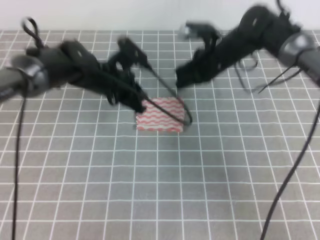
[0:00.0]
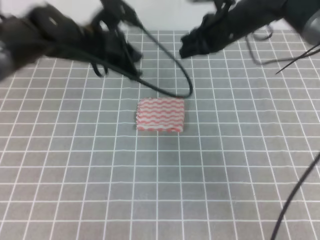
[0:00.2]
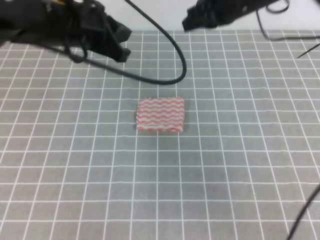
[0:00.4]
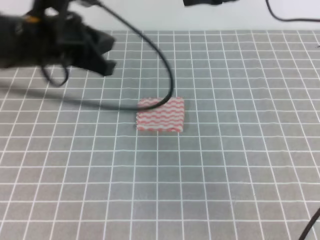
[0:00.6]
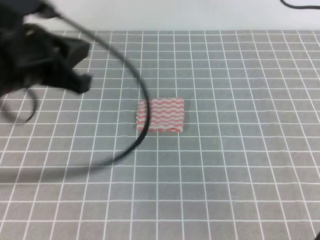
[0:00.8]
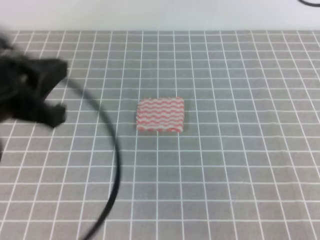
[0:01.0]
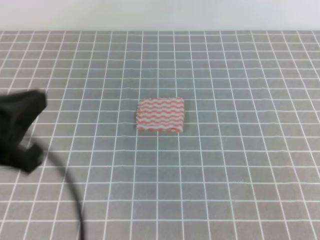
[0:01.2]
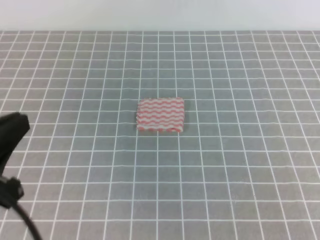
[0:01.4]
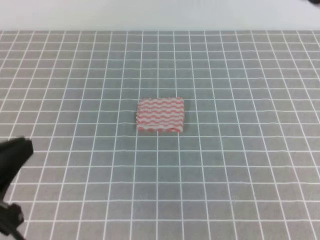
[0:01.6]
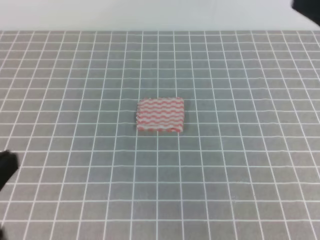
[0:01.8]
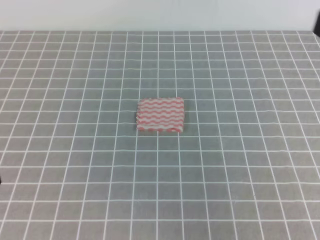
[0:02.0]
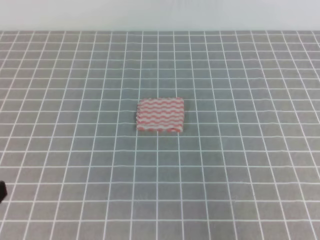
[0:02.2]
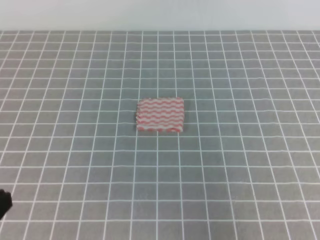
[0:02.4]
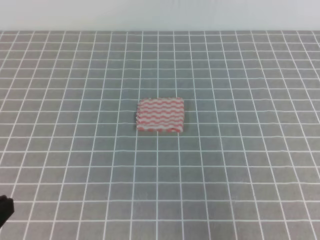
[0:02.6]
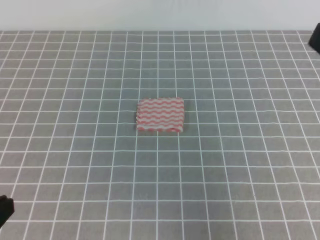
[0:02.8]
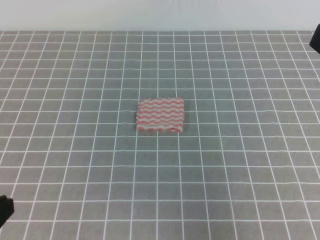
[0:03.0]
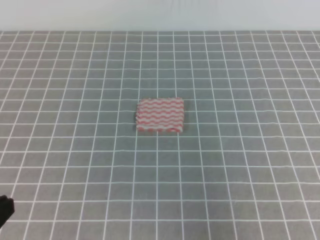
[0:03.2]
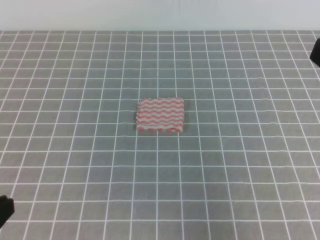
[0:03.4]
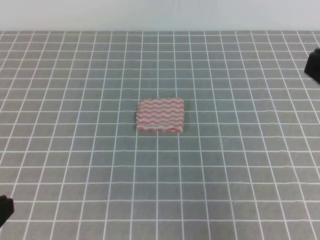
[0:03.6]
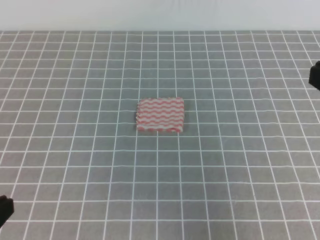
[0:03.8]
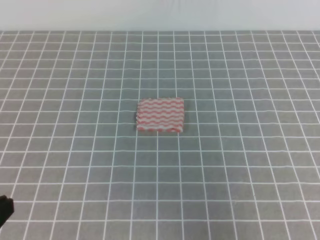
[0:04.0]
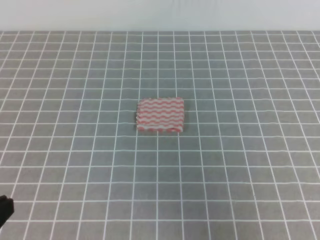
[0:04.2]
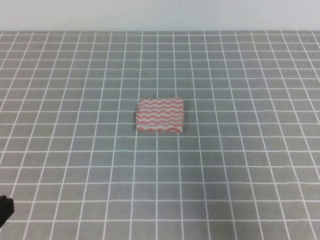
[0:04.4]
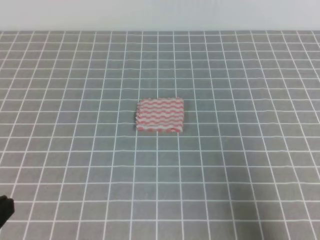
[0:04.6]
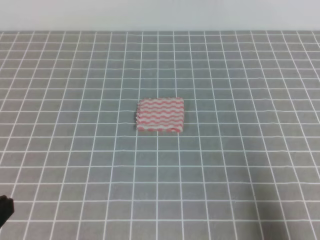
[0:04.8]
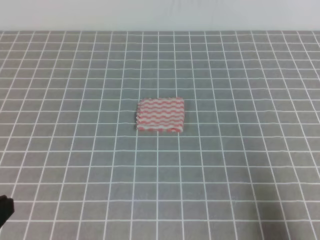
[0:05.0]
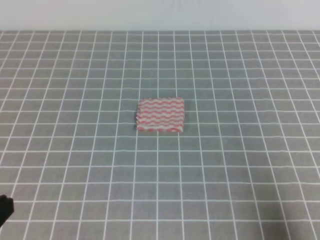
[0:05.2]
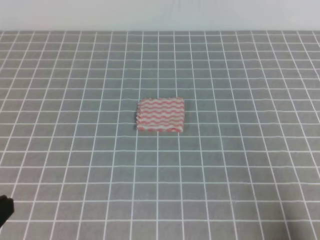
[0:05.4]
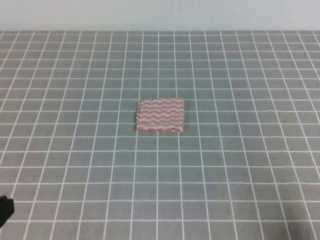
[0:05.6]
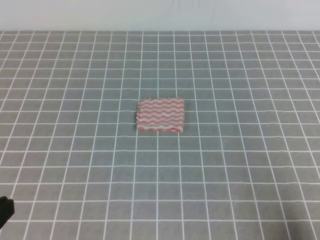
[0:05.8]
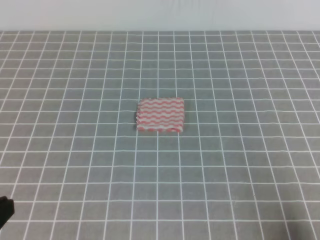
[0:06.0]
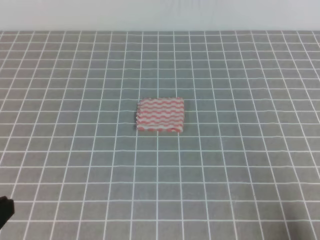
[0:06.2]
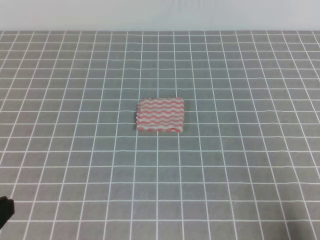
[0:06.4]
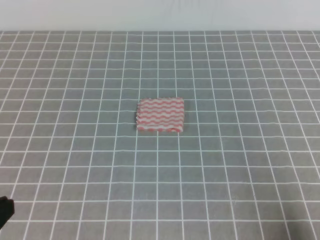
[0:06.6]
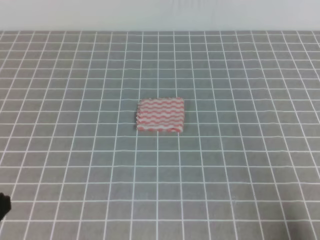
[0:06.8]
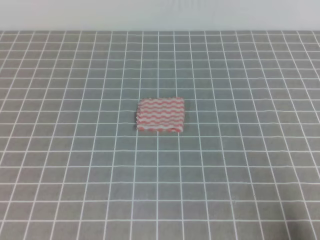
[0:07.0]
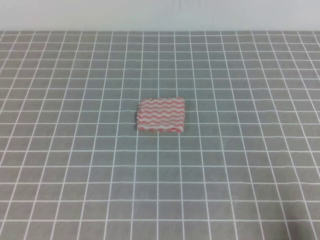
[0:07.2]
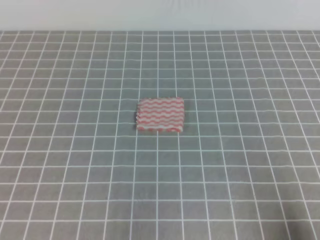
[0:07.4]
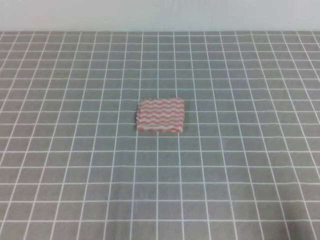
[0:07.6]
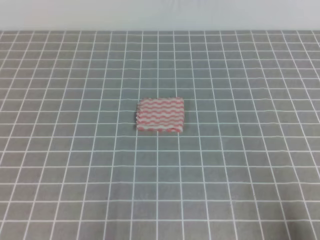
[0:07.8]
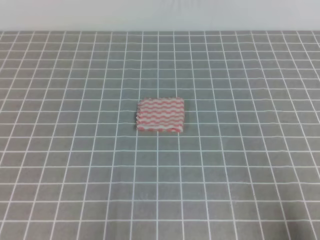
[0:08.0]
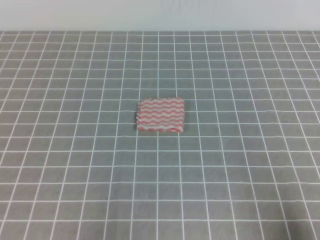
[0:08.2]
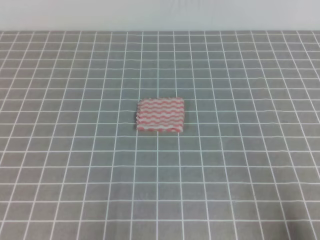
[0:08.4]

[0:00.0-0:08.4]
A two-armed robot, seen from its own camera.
Step, 0.0 to 8.4 s: Fold the towel.
0.0 to 1.4 s: The right gripper is displaced upward and backward by approximately 30 cm. The left gripper shifts some 30 cm backward and to the left.
1.4 to 2.8 s: The right gripper heads backward and downward, covering about 15 cm, while the left gripper goes about 5 cm backward.
4.2 to 5.6 s: The right gripper heads downward, covering about 20 cm.

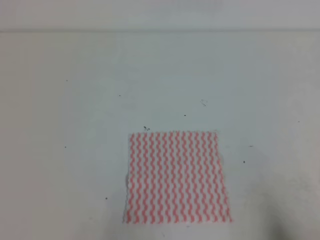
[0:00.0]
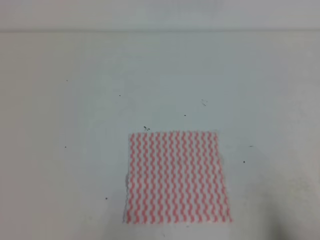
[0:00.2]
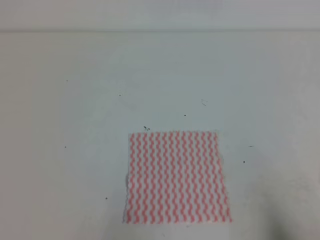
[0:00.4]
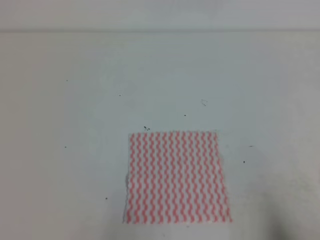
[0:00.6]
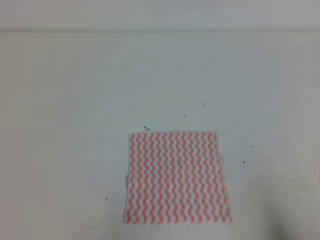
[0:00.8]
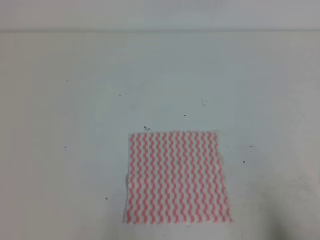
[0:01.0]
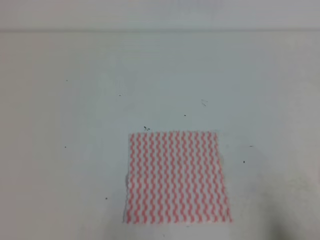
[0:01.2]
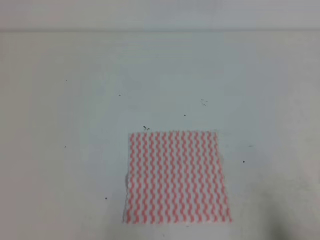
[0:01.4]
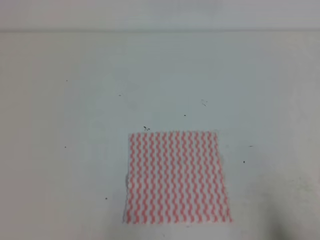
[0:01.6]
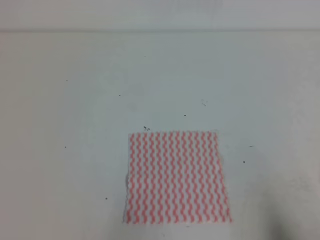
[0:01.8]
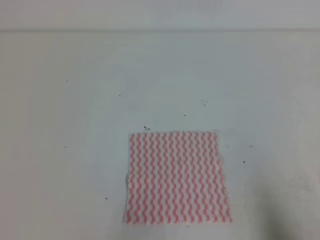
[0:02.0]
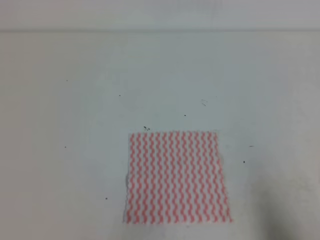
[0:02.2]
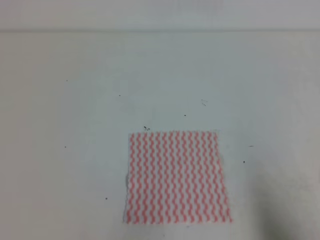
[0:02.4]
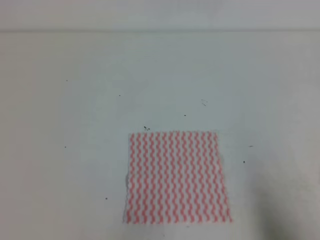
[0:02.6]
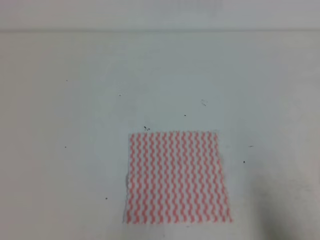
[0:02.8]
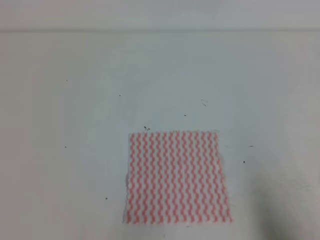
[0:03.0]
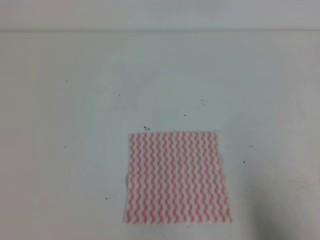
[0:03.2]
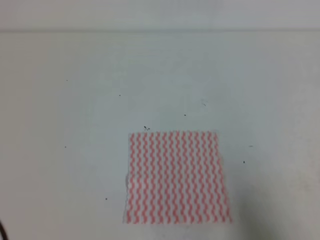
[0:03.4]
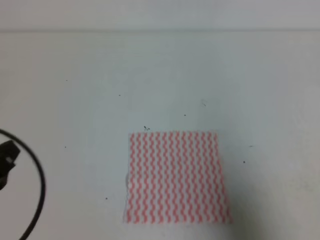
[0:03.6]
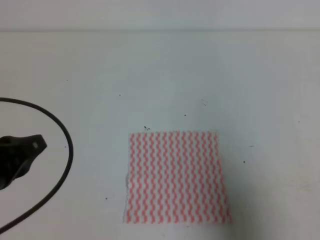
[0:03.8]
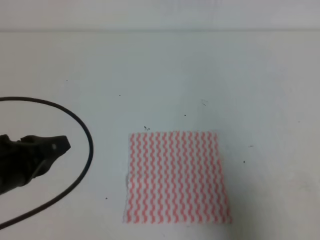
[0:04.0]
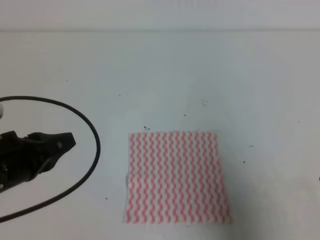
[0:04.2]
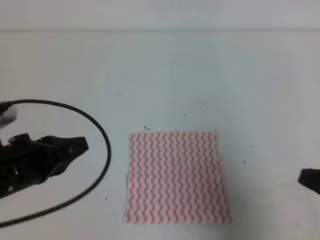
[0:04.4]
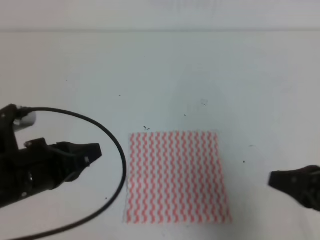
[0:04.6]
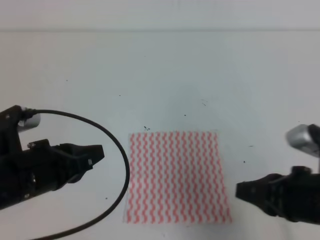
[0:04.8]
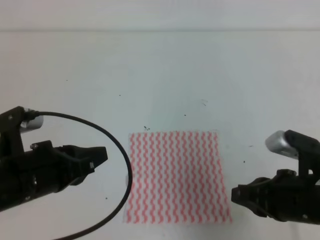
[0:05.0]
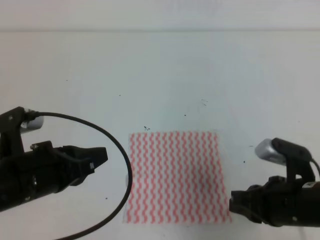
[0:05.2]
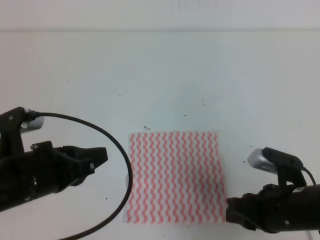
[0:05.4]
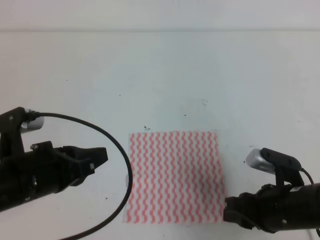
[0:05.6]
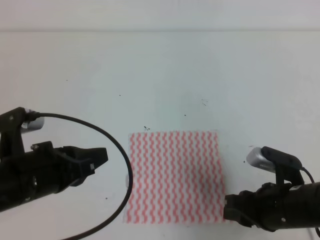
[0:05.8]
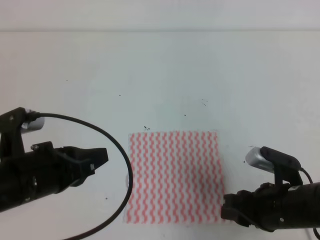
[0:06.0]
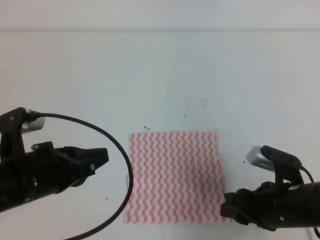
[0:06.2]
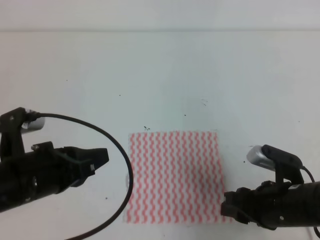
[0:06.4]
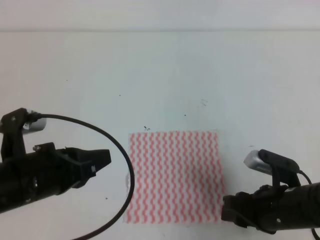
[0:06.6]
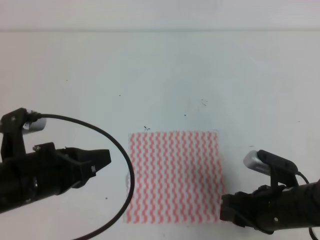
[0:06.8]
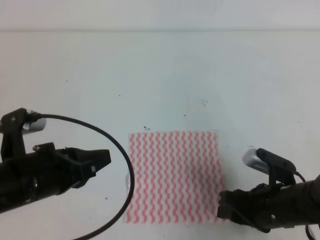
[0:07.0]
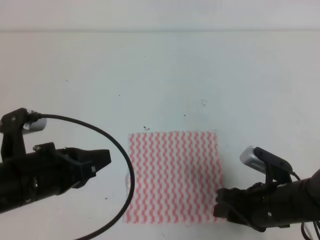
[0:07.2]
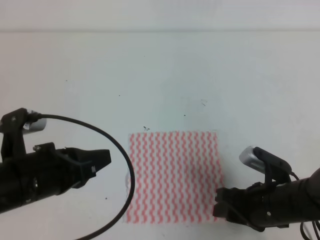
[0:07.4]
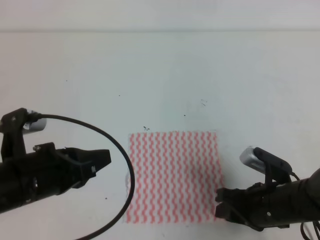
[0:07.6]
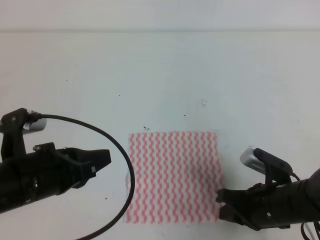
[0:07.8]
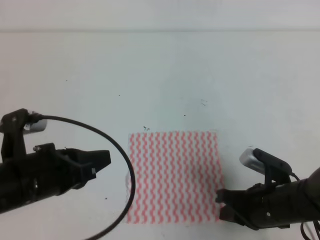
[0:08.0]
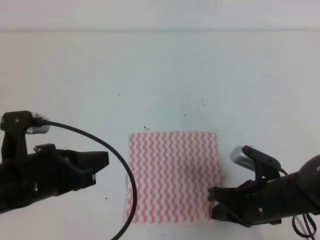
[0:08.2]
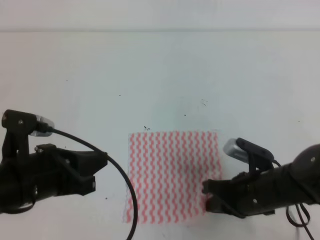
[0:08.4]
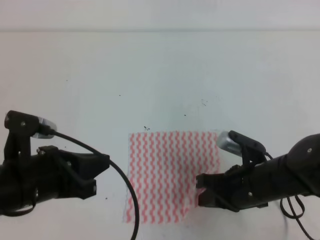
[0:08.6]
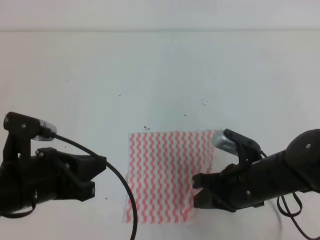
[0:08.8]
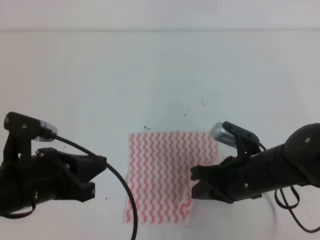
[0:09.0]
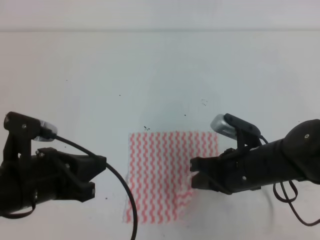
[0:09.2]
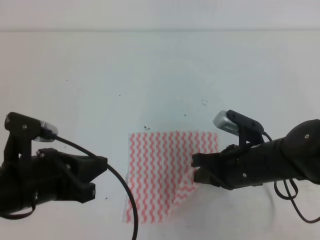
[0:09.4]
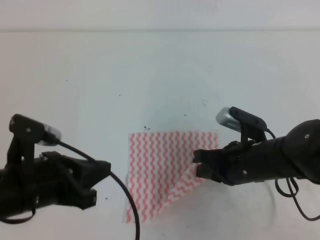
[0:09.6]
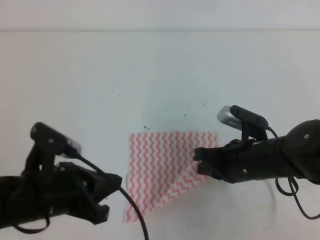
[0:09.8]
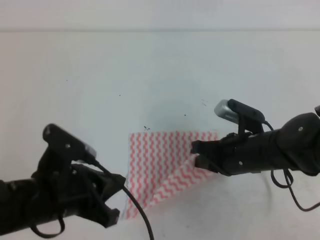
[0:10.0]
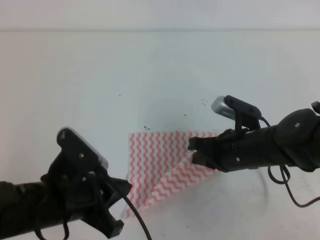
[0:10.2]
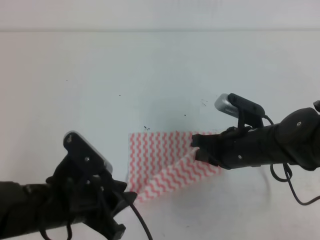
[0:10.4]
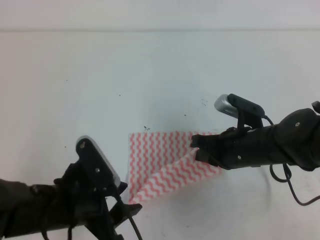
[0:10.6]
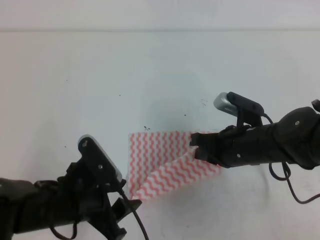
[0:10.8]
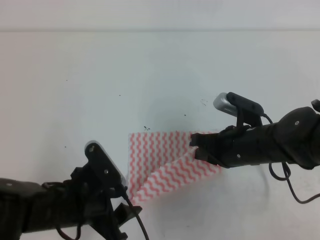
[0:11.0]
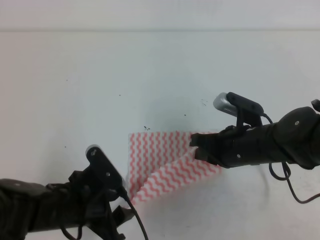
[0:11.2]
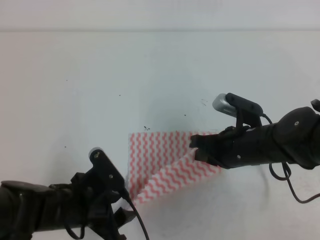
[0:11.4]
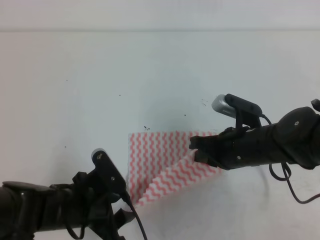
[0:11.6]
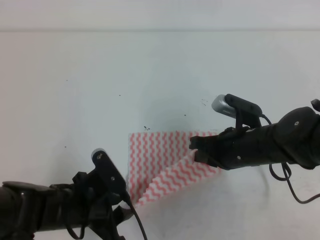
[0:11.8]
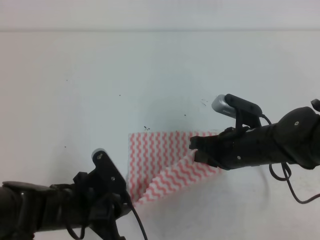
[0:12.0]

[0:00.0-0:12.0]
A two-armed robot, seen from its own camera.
0.0 to 1.6 s: Both grippers stay about where they are.
3.0 to 4.4 s: The left gripper moves forward and to the right, approximately 15 cm, while the right gripper travels forward and upward by approximately 10 cm.
4.4 to 6.0 s: The right gripper is displaced downward, to the left and forward by about 15 cm, and opens its fingers.
6.0 to 7.6 s: The grippers stay close to where they were, moving slightly.
7.6 to 9.0 s: The right gripper goes some 5 cm upward, and closes its fingers.
9.0 to 10.4 s: The left gripper changes place by about 5 cm, and opens its fingers.
10.4 to 12.0 s: The left gripper shifts approximately 5 cm downward, and opens and closes again.

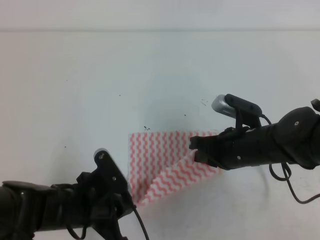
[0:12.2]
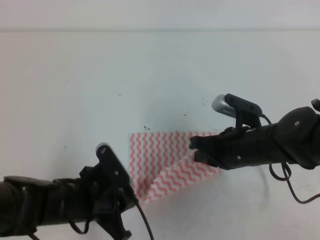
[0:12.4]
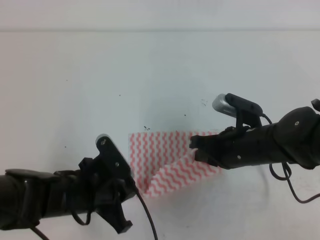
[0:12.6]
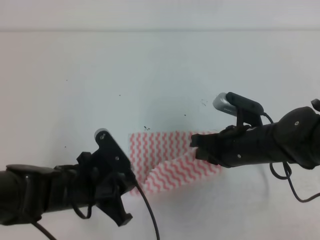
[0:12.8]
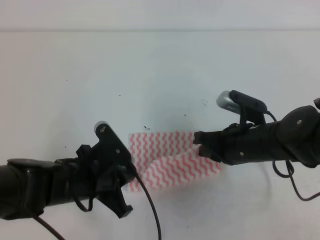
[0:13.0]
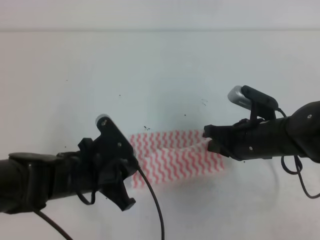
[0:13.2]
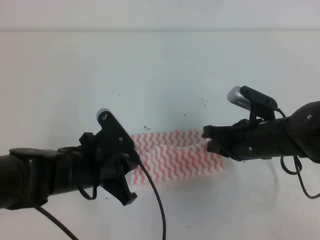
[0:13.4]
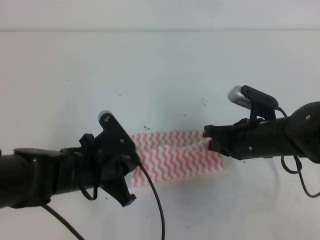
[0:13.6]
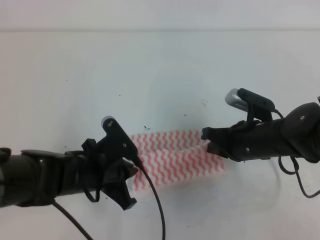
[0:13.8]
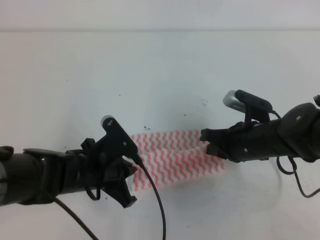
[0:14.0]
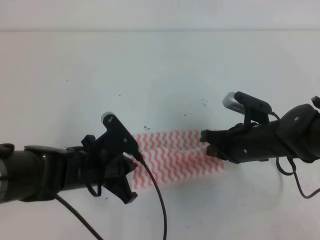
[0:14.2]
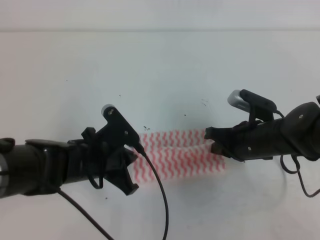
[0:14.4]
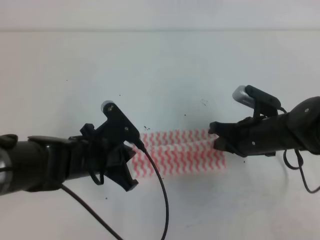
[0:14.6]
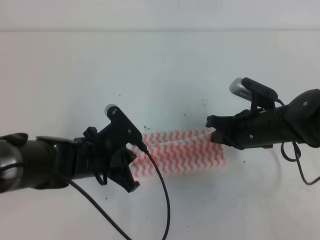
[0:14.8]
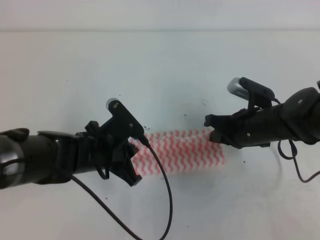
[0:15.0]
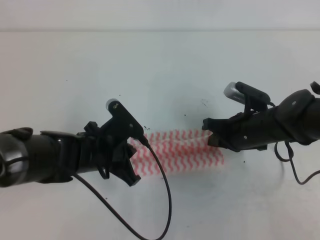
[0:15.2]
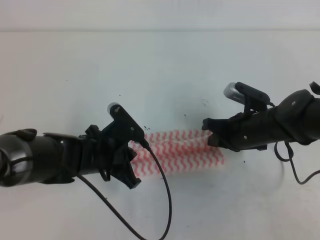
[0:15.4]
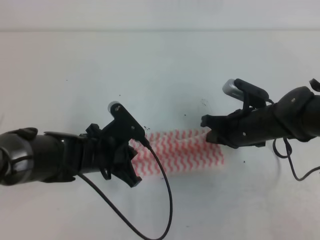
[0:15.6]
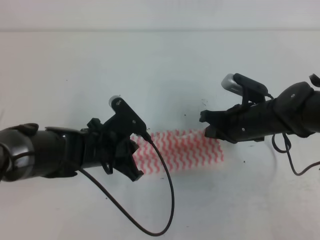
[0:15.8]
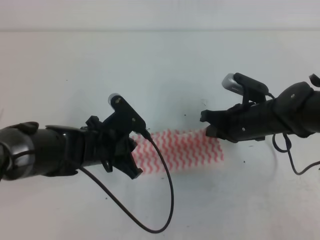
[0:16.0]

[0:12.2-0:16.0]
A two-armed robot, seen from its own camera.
12.2 to 13.4 s: The left gripper changes place by roughly 5 cm.
13.4 to 16.0 s: The grippers stay close to where they were, moving slightly.
